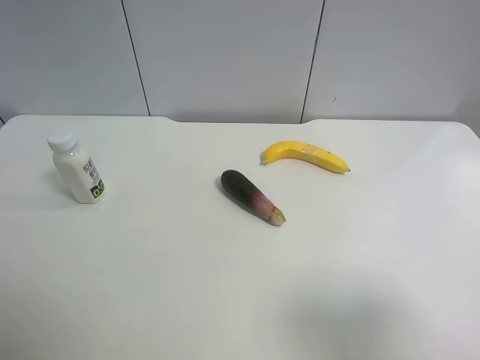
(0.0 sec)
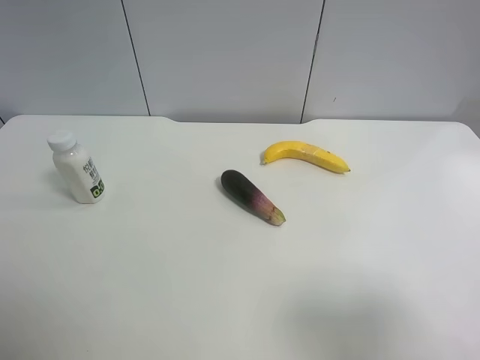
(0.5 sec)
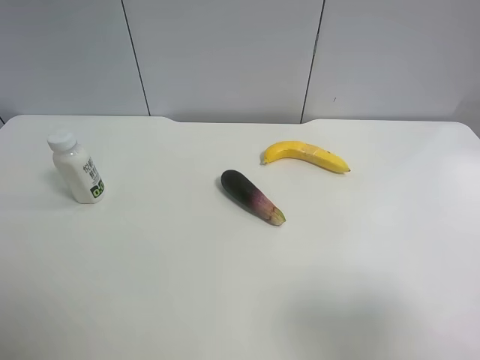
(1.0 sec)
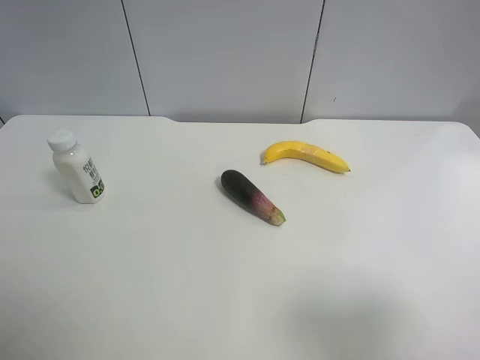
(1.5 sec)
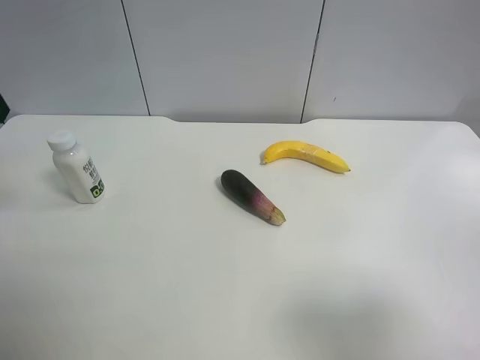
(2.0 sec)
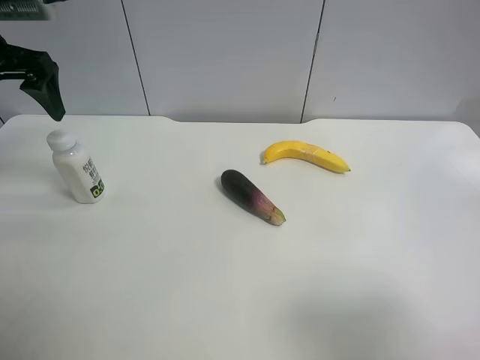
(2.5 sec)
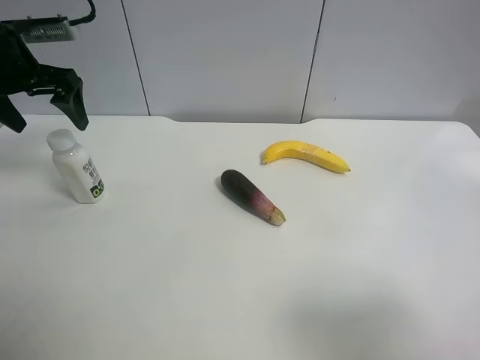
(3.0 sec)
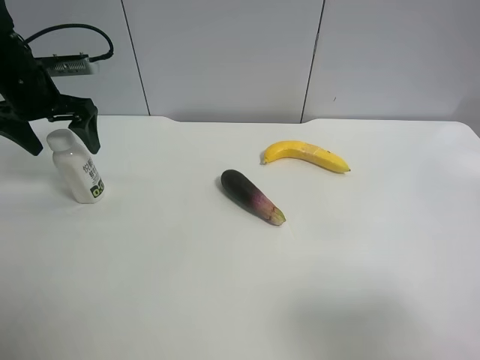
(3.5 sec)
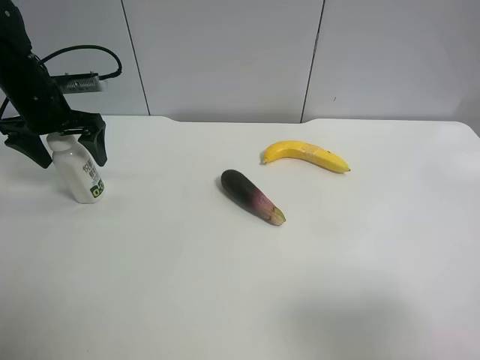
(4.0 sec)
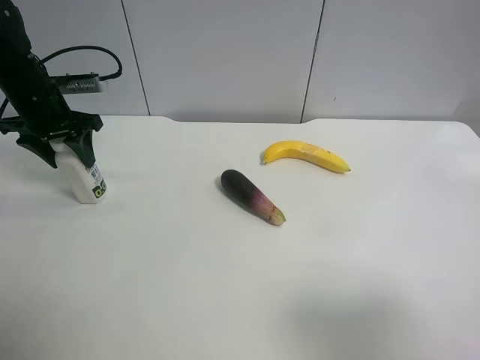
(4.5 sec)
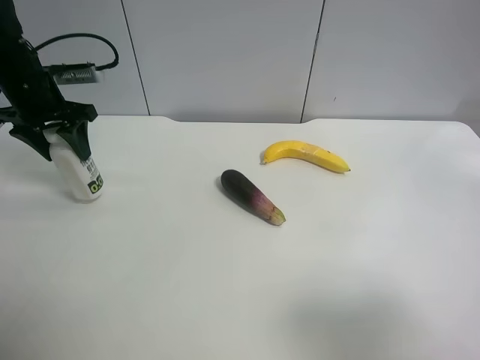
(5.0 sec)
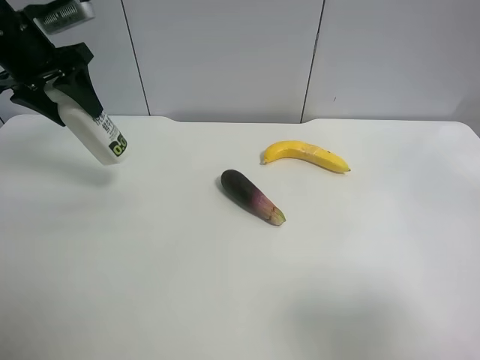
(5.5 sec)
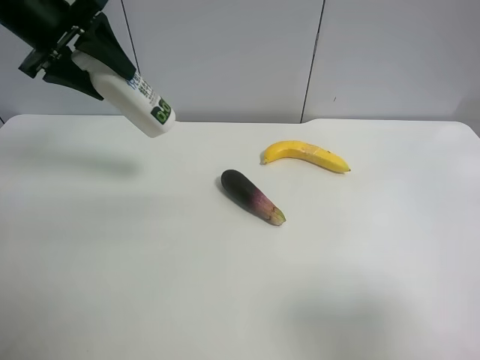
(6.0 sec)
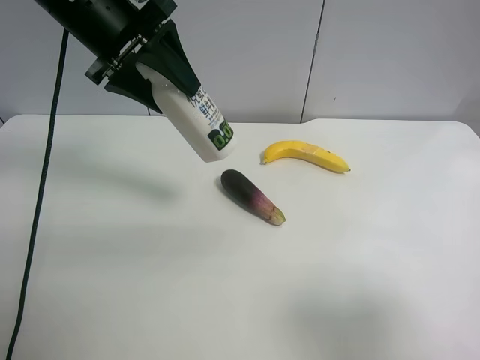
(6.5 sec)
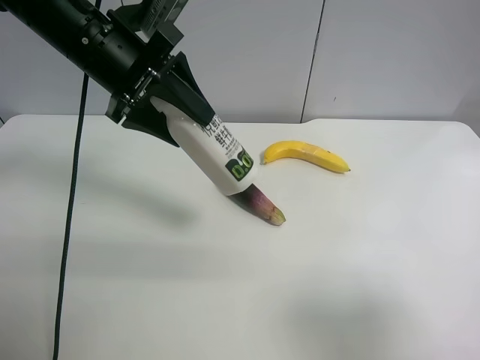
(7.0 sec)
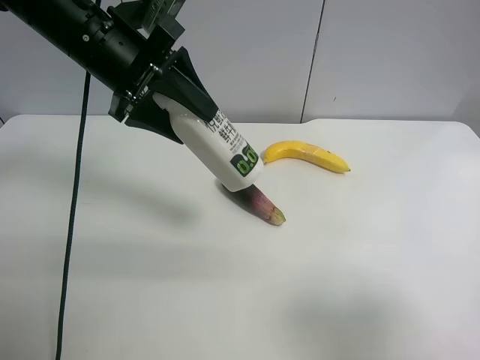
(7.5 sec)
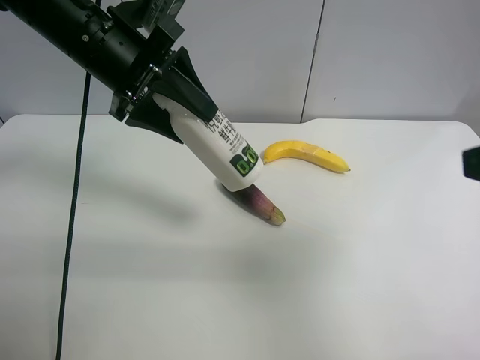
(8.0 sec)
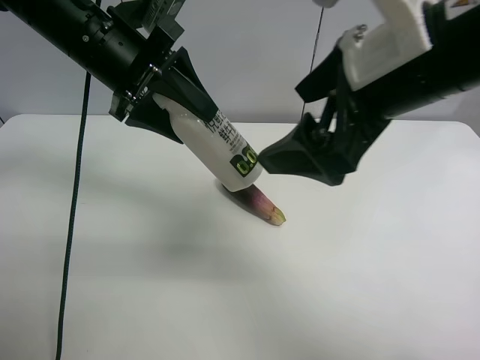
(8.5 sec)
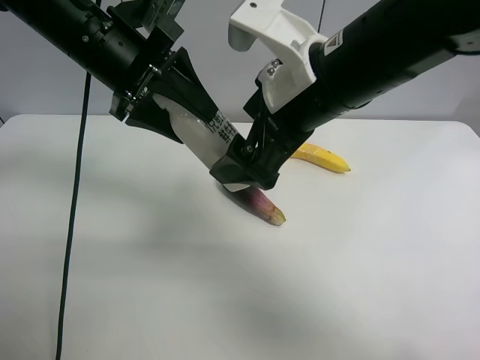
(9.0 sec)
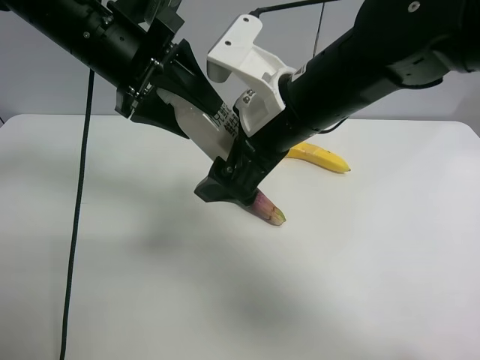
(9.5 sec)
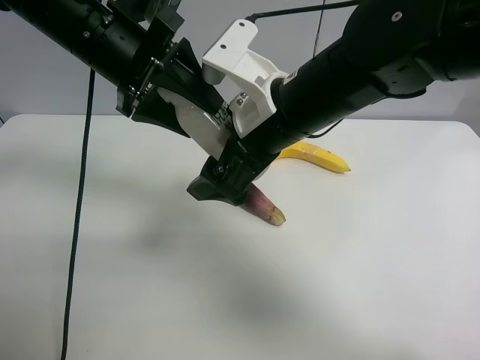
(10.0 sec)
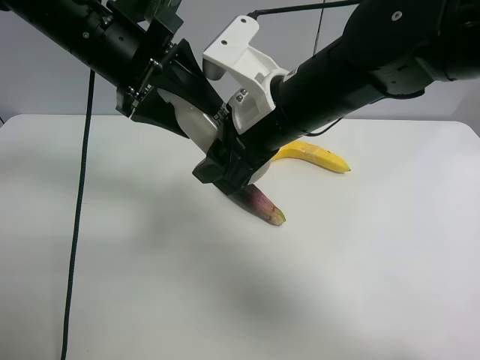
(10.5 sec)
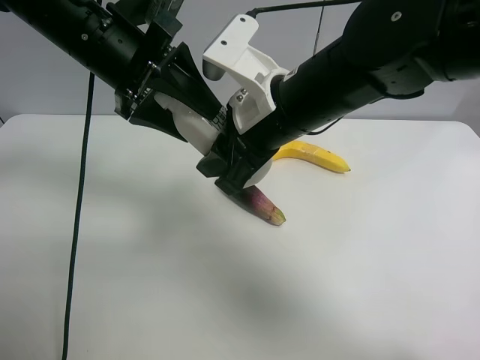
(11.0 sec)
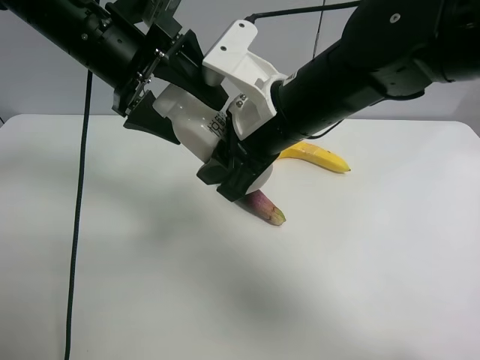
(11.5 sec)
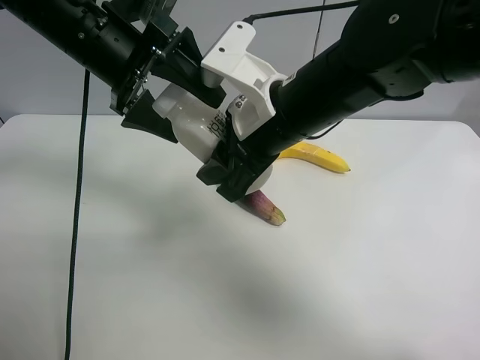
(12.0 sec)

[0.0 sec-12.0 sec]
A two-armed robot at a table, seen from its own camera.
Task of the whole recording: use the left gripper to pick up the item and transfer it from the left gripper to the right gripper.
2.0 sec to 4.0 sec: The left gripper shifts about 20 cm downward and forward.
4.0 sec to 6.0 sec: The left gripper goes approximately 15 cm upward and to the right, and closes its fingers.
6.0 sec to 8.0 sec: The left gripper is displaced to the right by some 10 cm. The right gripper goes roughly 10 cm forward and upward.
8.0 sec to 10.0 sec: The right gripper is displaced to the left, forward and downward by some 25 cm.
10.0 sec to 12.0 sec: The left gripper opens. The right gripper closes.

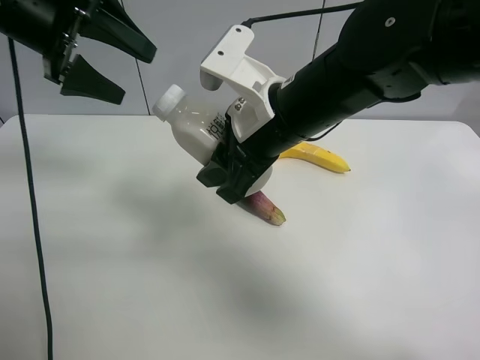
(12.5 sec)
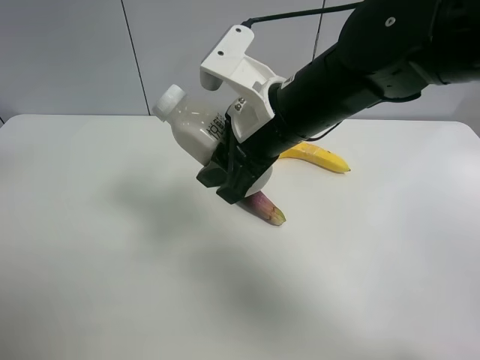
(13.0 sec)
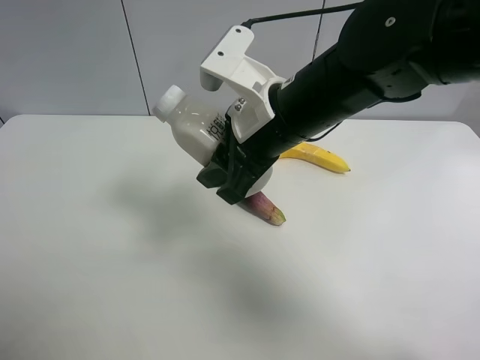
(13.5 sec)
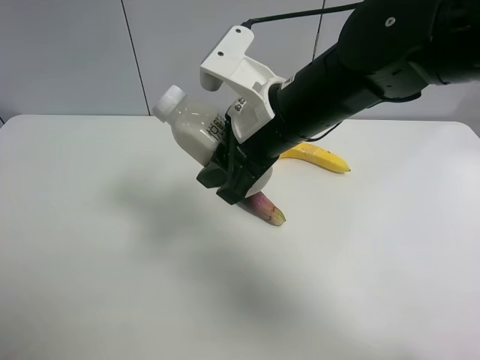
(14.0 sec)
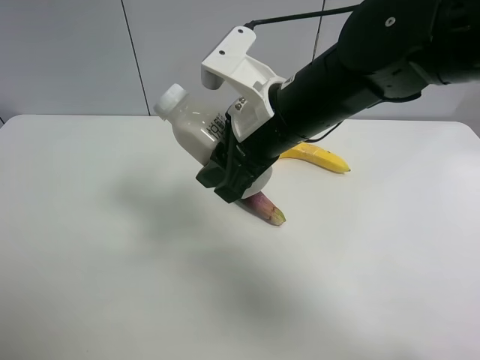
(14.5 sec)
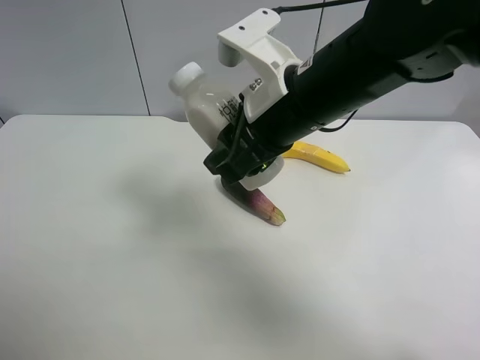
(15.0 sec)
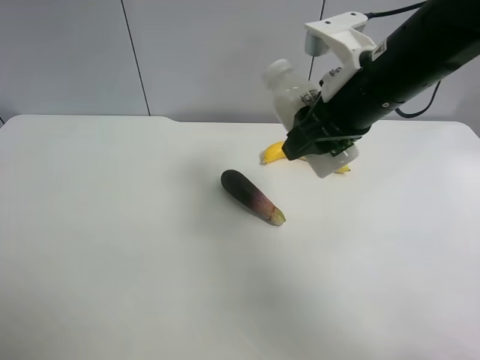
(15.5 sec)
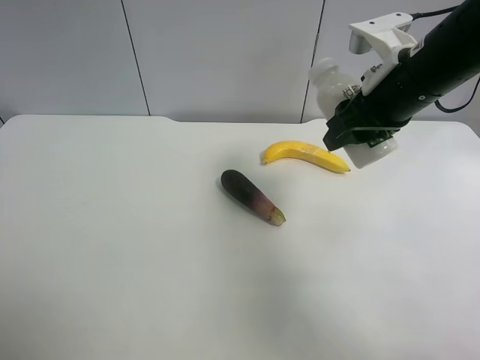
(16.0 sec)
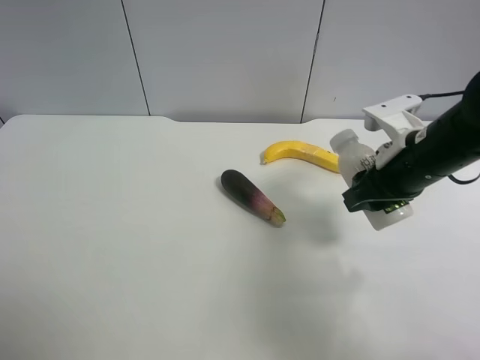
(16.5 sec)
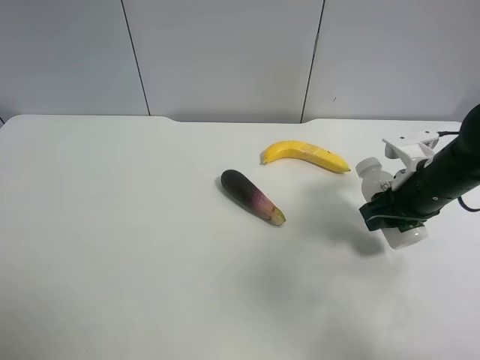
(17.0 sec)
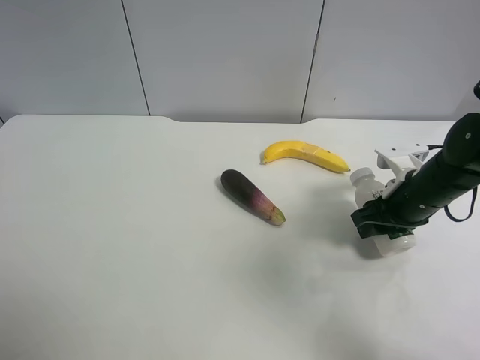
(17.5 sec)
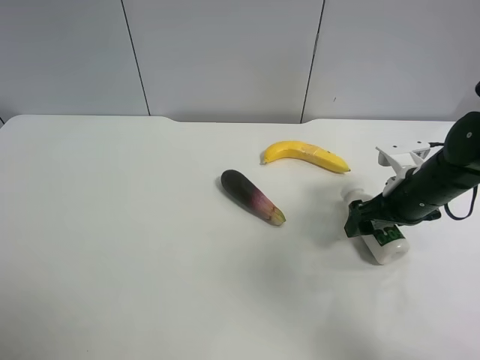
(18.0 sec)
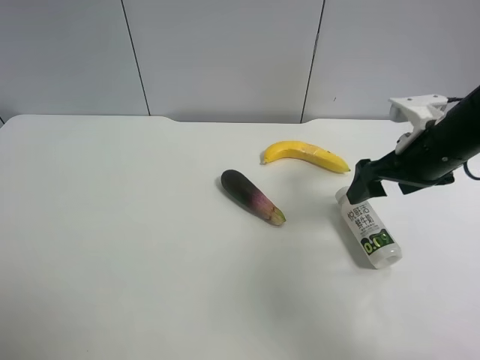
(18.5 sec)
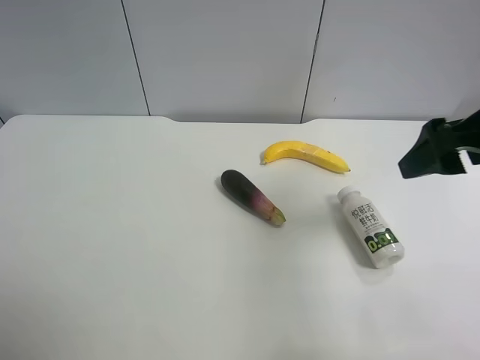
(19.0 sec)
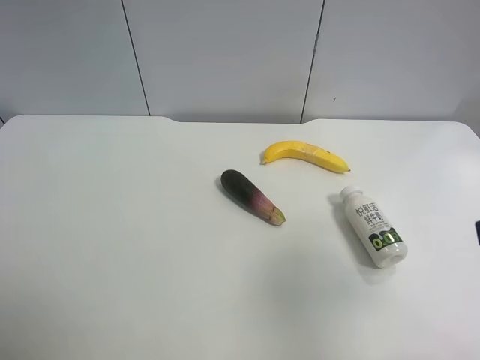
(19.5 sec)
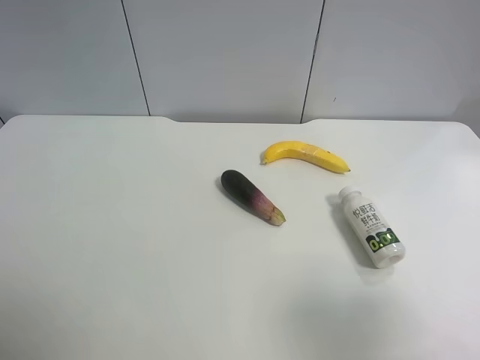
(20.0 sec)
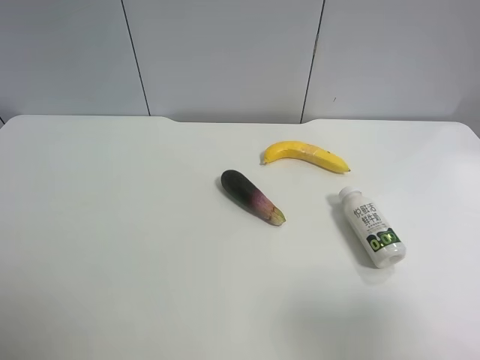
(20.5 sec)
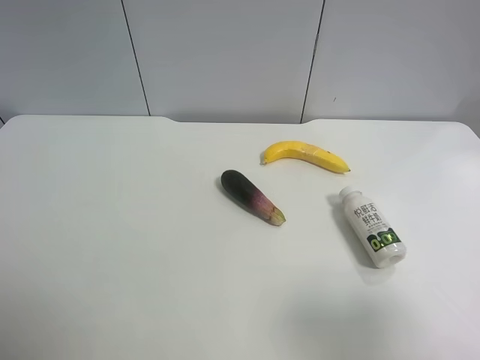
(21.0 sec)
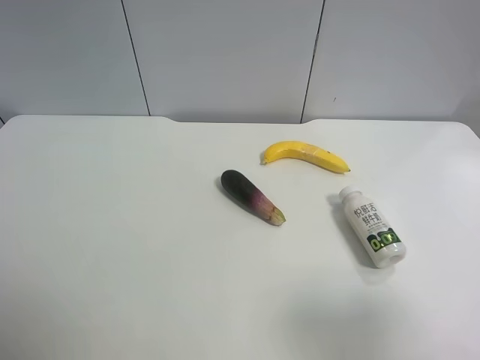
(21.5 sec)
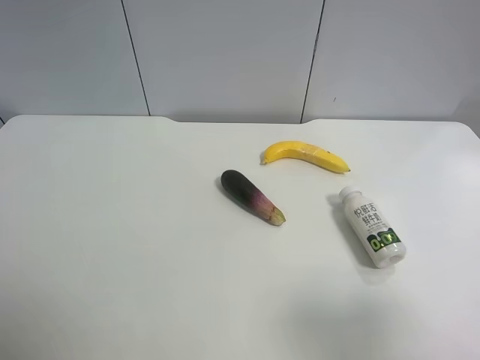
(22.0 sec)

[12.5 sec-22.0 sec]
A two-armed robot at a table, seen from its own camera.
Task of the whole recording: use the left gripper to pick up the item and transfer it from the left gripper to the right gripper.
12.5 sec to 14.5 sec: The left gripper shifts approximately 35 cm backward.
14.5 sec to 16.5 sec: The right gripper heads to the right, covering about 15 cm.
16.5 sec to 18.0 sec: The right gripper travels downward by some 5 cm, and opens.
18.0 sec to 20.0 sec: The right gripper moves backward and upward, approximately 30 cm.
20.0 sec to 22.0 sec: The two grippers keep their place.
